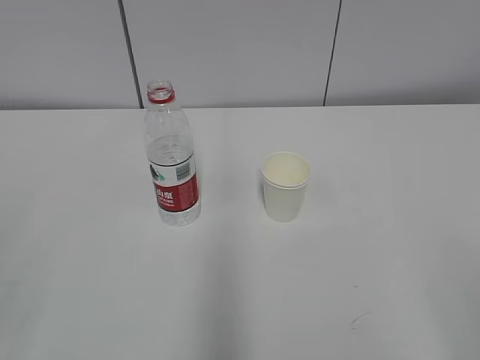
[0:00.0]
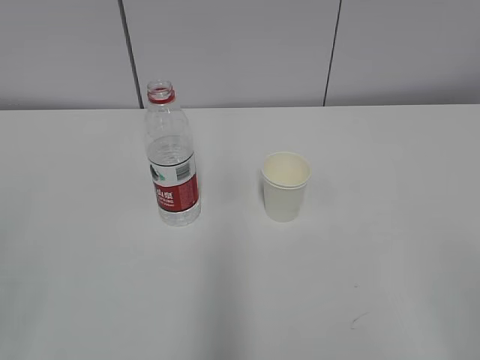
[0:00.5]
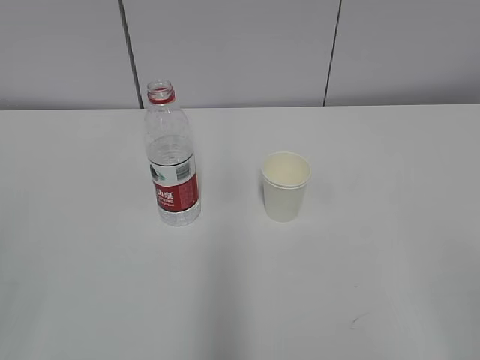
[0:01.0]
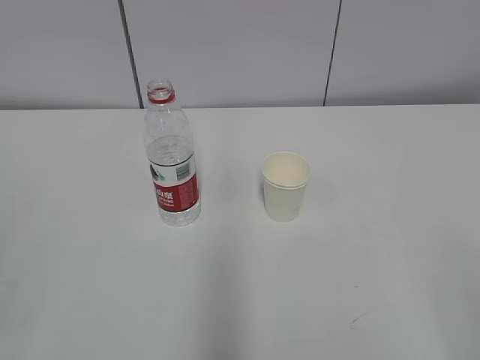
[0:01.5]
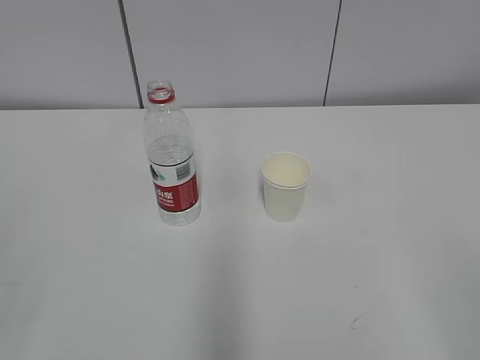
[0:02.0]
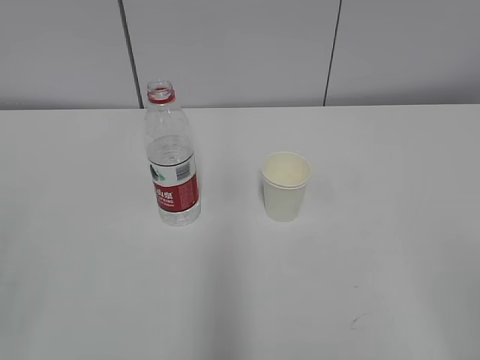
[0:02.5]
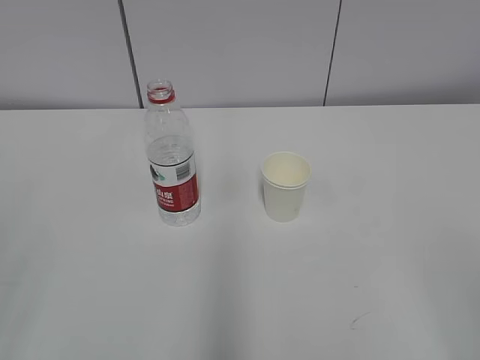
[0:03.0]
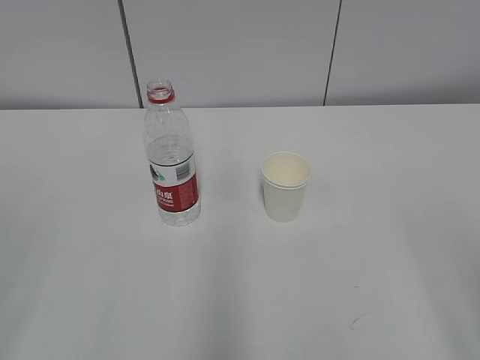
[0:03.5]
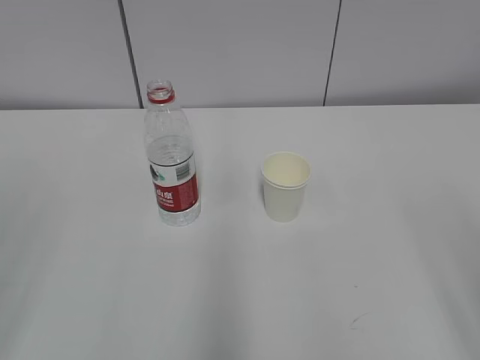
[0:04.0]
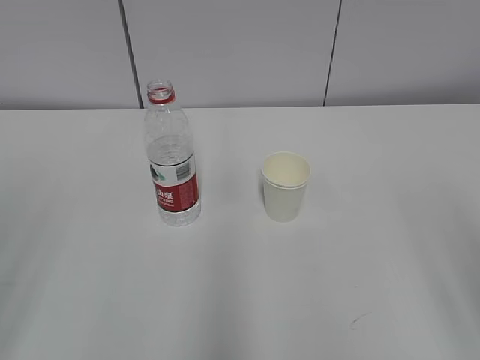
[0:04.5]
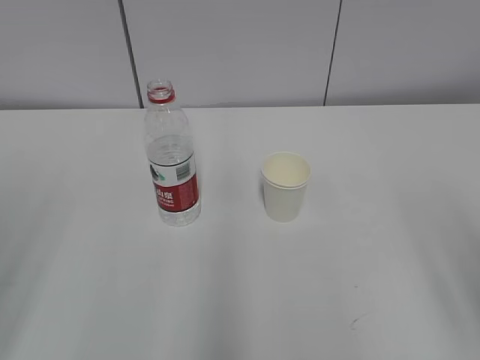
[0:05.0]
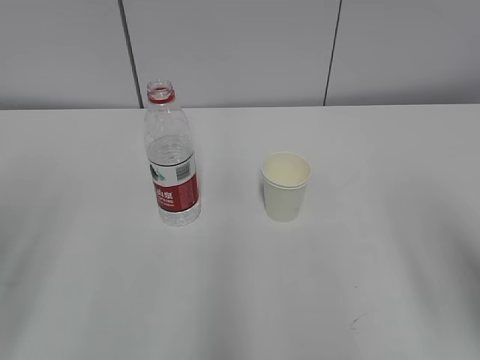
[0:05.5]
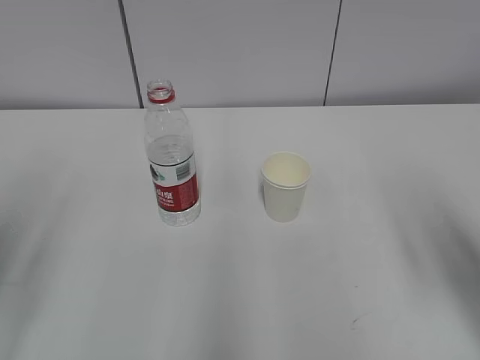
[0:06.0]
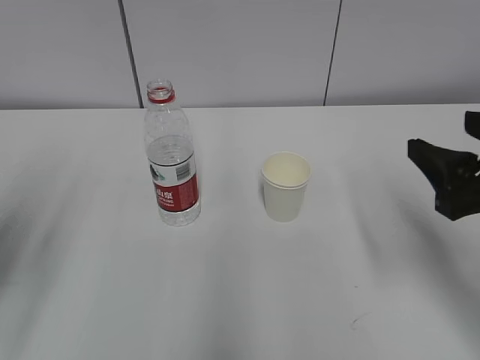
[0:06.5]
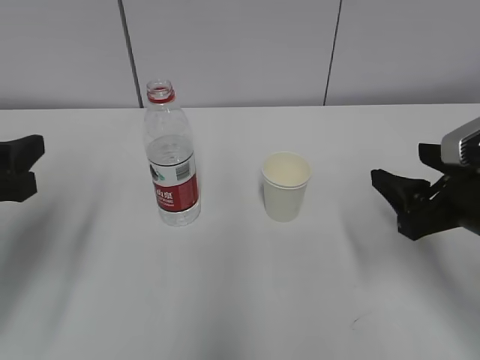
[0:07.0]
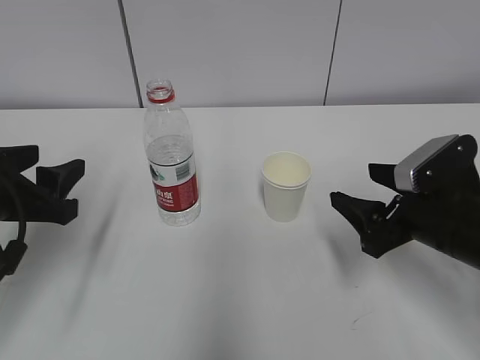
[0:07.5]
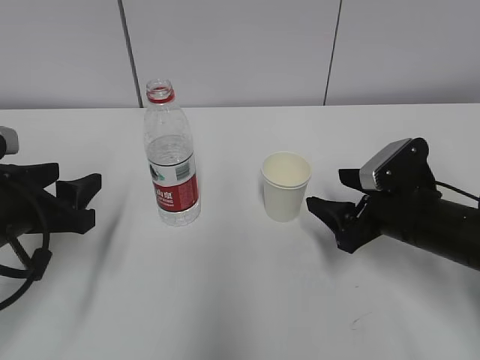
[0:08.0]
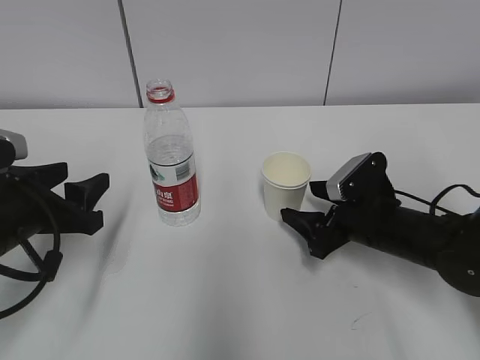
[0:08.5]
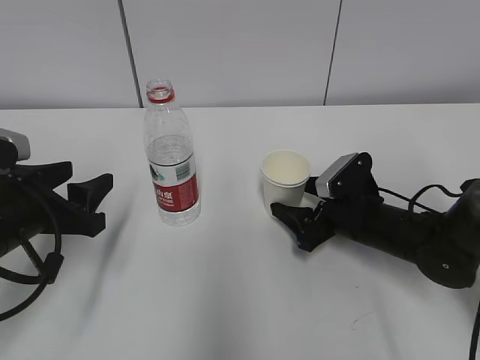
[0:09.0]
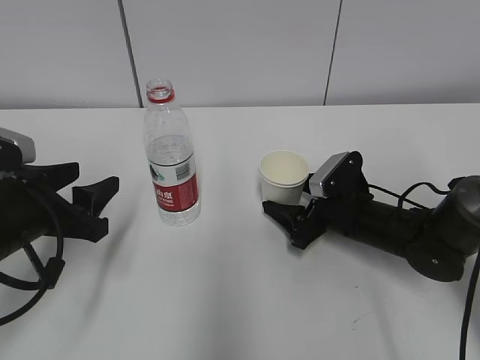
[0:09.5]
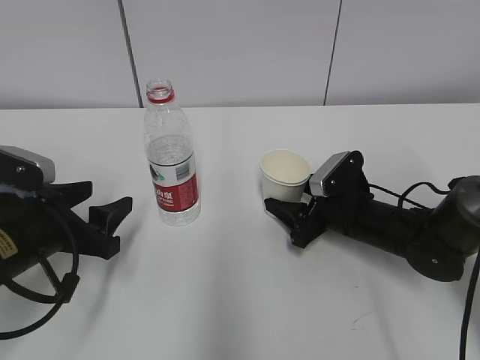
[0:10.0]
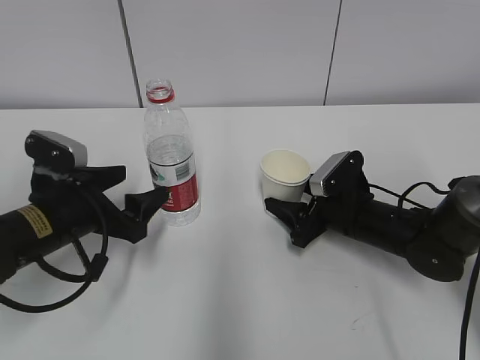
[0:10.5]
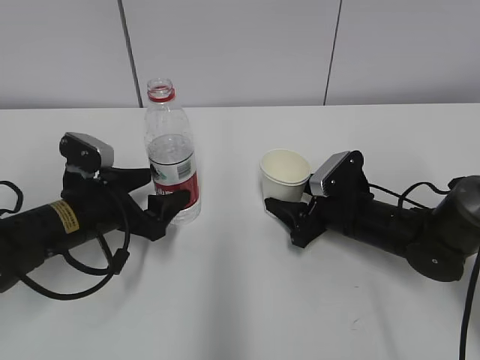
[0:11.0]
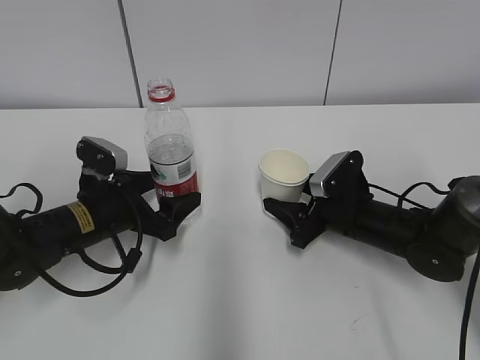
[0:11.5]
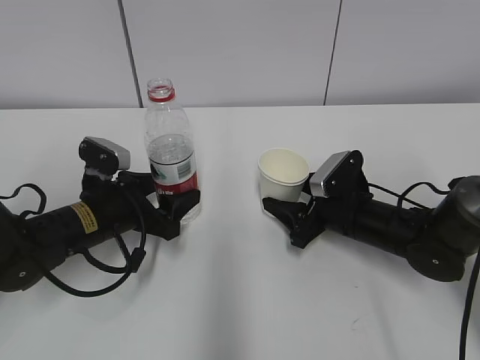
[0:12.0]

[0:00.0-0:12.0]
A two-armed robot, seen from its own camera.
Step, 0:00.0 to 0:09.0: Grab the paper cup with the right hand.
Step, 0:09.5 to 0:10.0: Grab the water bottle with the left hand.
0:04.0 to 0:06.0: The right gripper is displaced forward and downward by roughly 15 cm.
0:06.0 to 0:08.0: The left gripper heads downward, forward and to the right, covering roughly 15 cm. Meanwhile the right gripper heads downward and forward, covering approximately 20 cm.
0:08.0 to 0:10.0: The right gripper heads forward and downward, covering some 10 cm, and closes its fingers.
0:10.0 to 0:12.0: The left gripper travels forward and to the right by roughly 10 cm, and opens, then closes again.

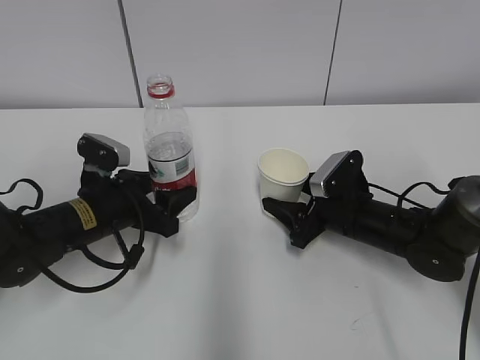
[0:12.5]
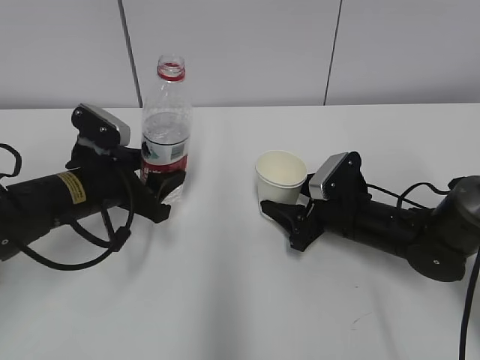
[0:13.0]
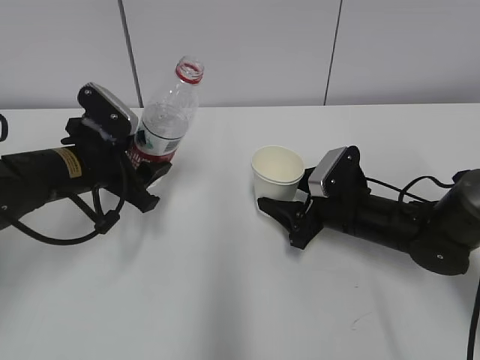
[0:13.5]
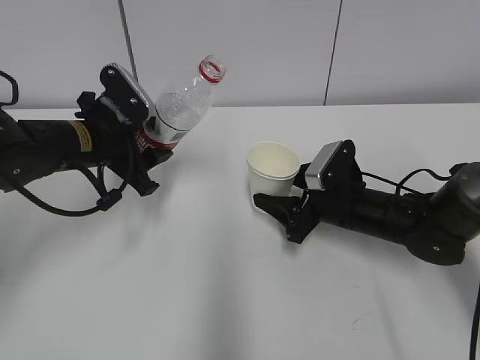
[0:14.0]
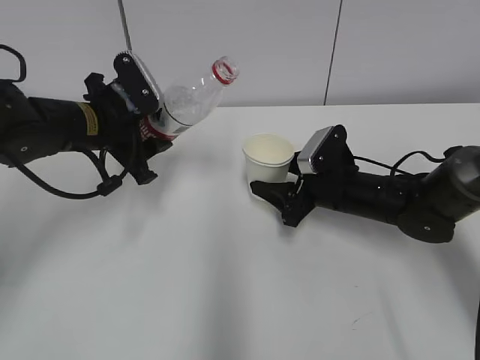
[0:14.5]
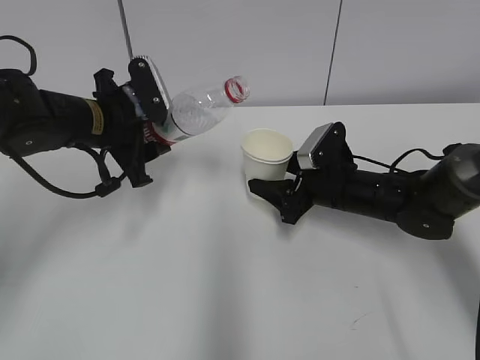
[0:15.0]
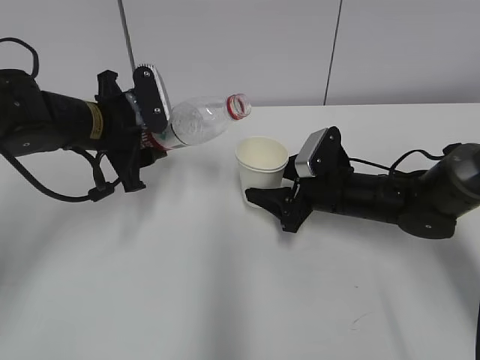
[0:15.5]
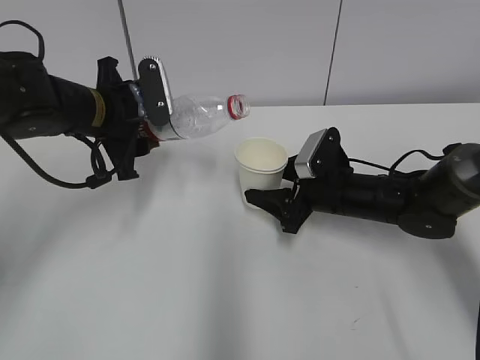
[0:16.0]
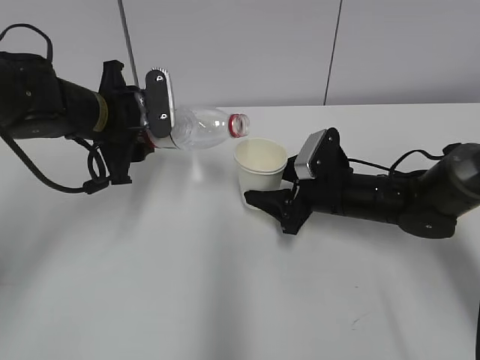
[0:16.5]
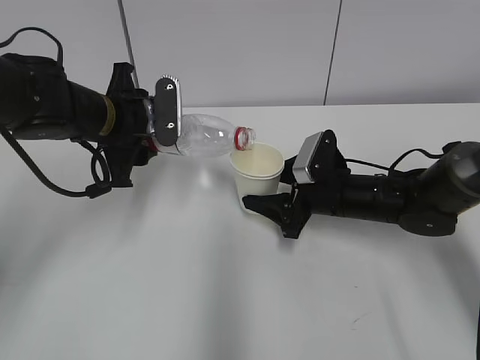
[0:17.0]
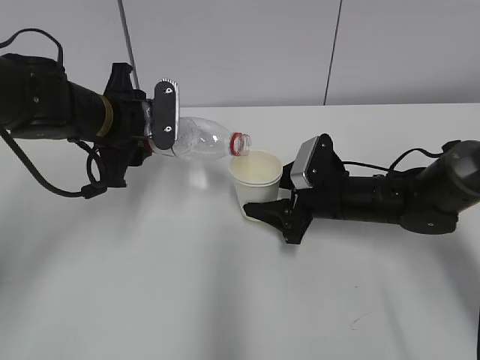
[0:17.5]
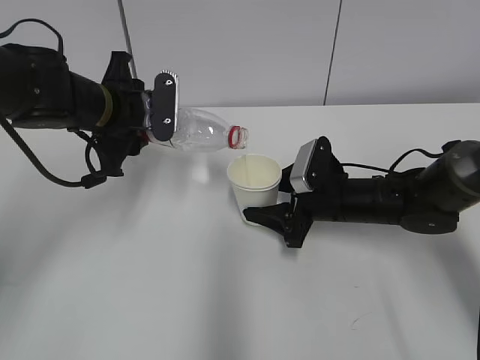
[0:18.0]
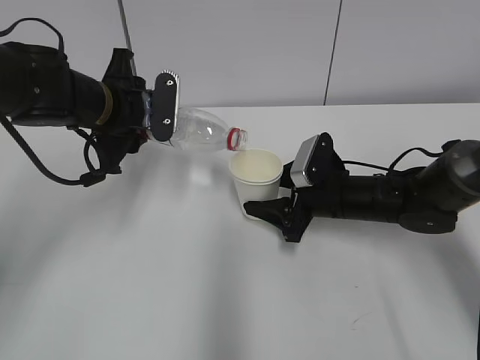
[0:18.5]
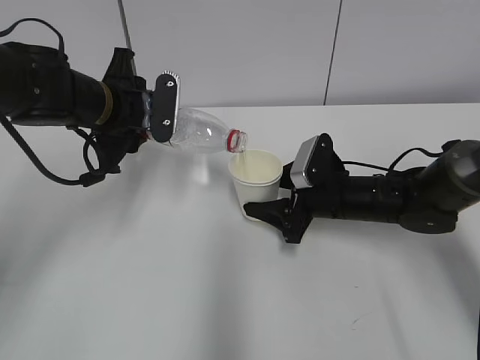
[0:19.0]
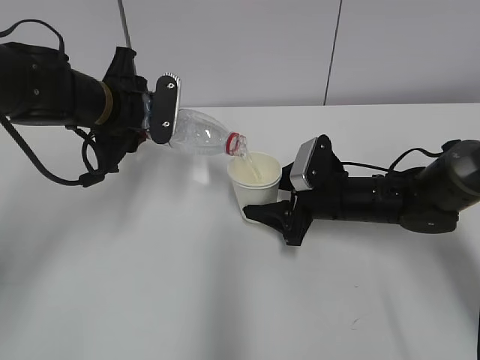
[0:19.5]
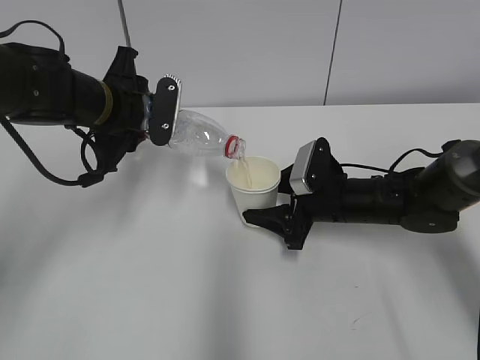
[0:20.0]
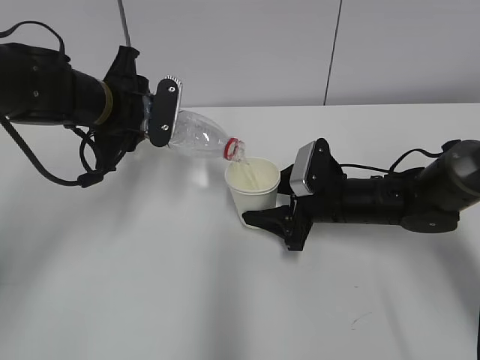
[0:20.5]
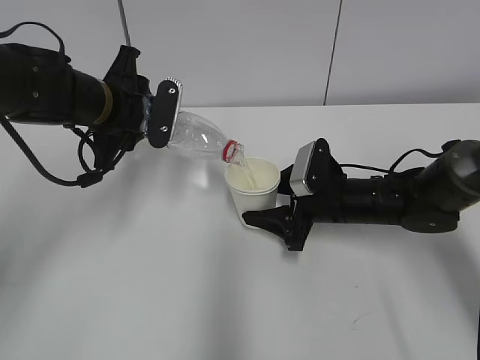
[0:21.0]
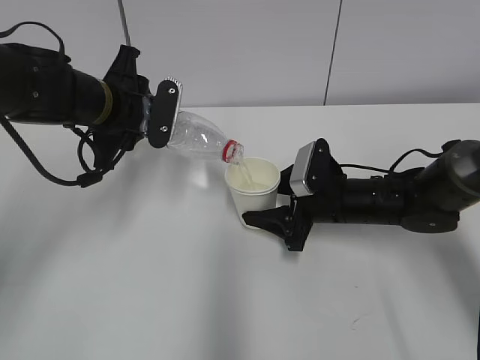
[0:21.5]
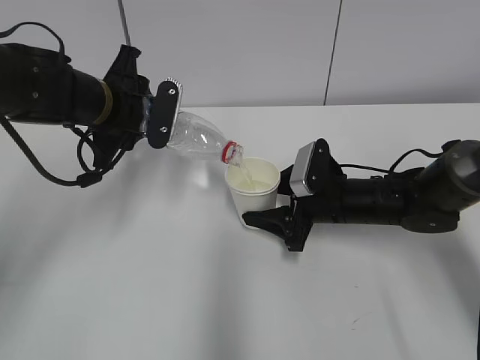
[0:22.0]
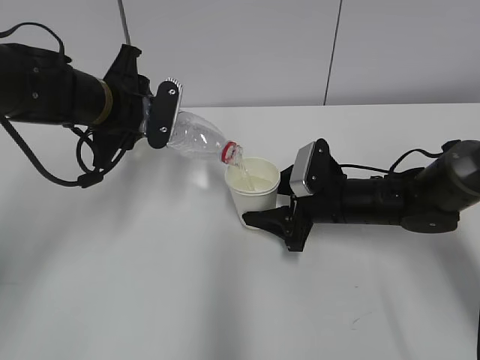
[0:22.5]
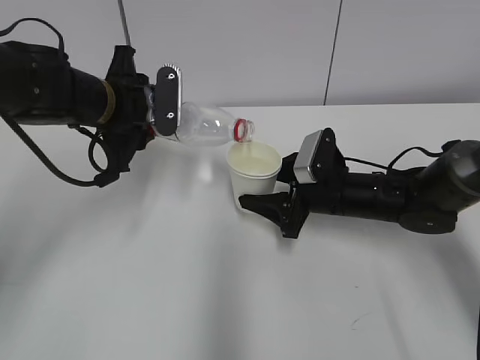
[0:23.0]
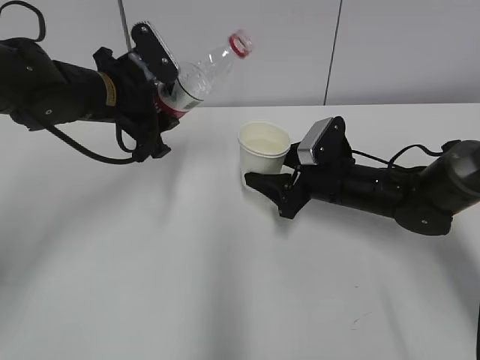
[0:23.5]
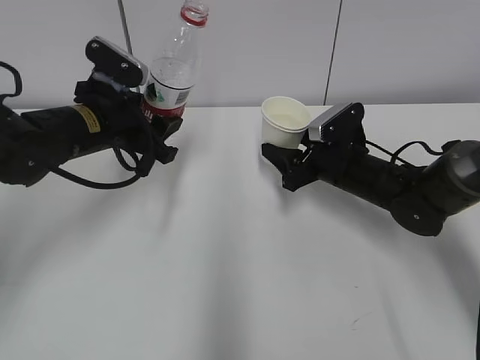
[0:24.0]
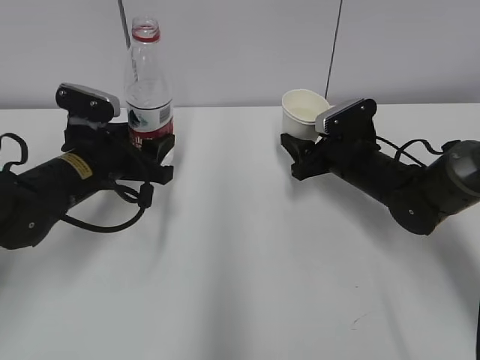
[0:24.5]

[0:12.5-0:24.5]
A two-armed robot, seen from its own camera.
Step, 0:12.5 to 0:14.5: Lift the paper cup with the right hand.
Step, 0:15.0 to 0:19.0: Fill water with the right hand.
Step, 0:15.0 to 0:19.0: Pour water with the left hand.
Step, 0:19.5 to 0:20.0: Collect water with the left hand.
0:12.5 to 0:14.5: The left gripper heads upward and forward, covering about 10 cm.
0:16.5 to 0:20.5: The grippers stay close to where they were, moving slightly.
0:20.5 to 0:22.5: The two grippers keep their place.
0:22.5 to 0:24.5: The right gripper ends up roughly 5 cm from where it was, while the left gripper travels downward by approximately 5 cm.

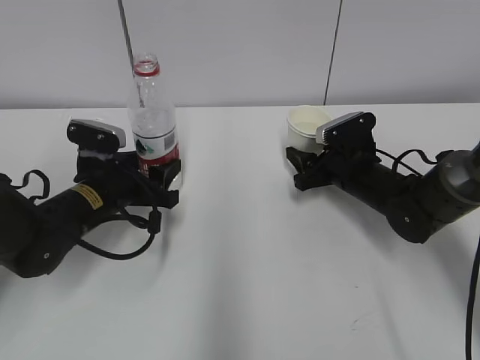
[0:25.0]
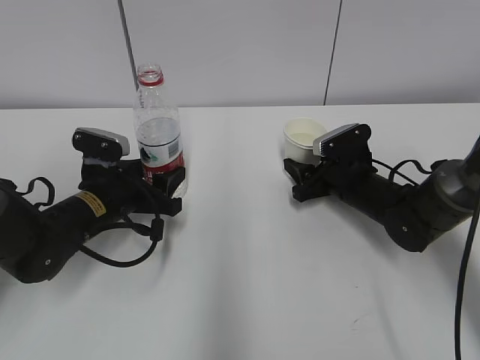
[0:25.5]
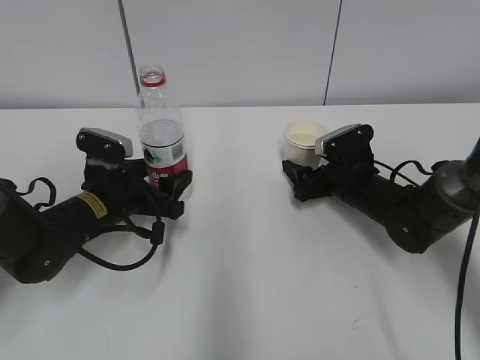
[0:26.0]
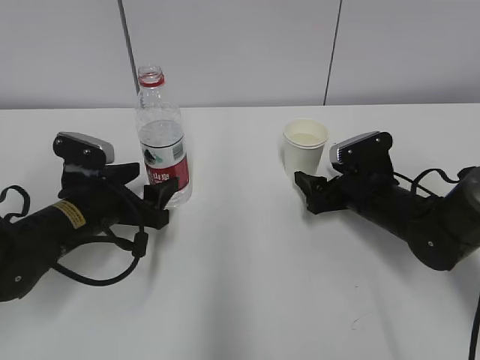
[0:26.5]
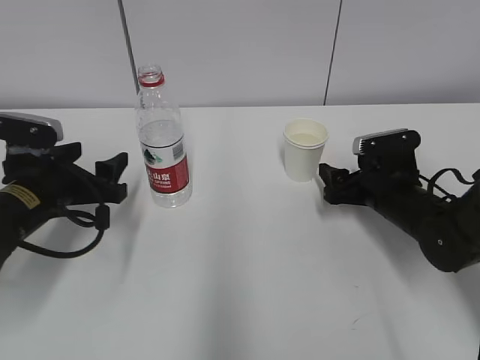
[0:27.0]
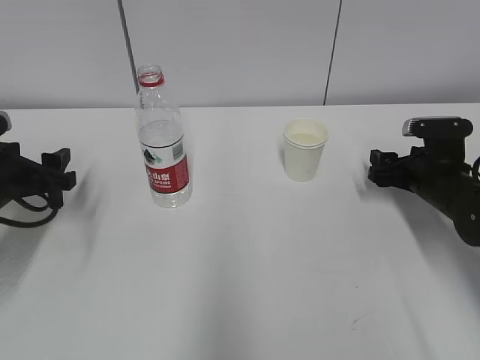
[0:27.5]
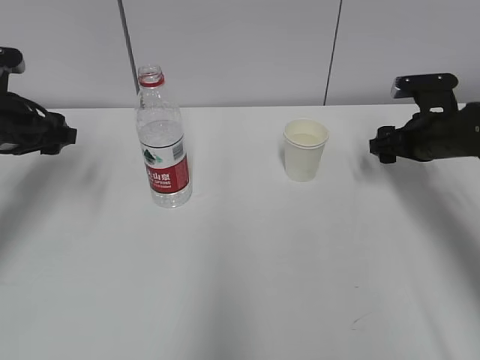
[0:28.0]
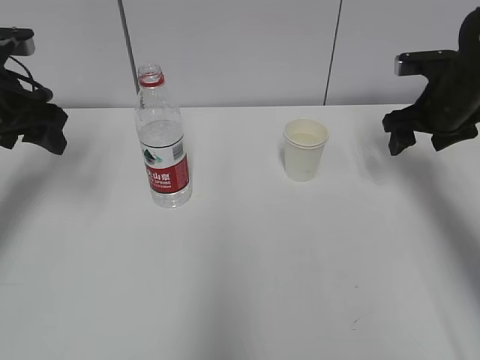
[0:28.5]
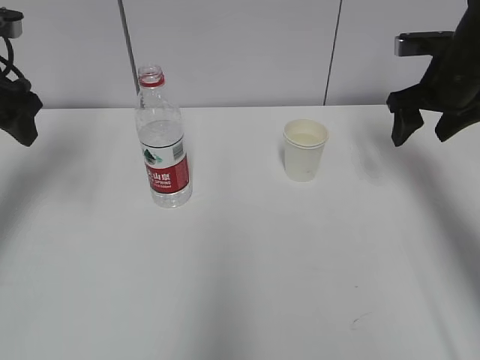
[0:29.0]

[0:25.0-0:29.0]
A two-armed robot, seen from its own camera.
0:25.0 to 0:27.0: The left gripper changes place by some 5 cm, and opens up. Meanwhile the right gripper goes approximately 5 cm backward, and opens.
0:27.0 to 0:29.0: The left gripper moves upward and to the left, about 20 cm. Meanwhile the right gripper shifts approximately 15 cm upward.
